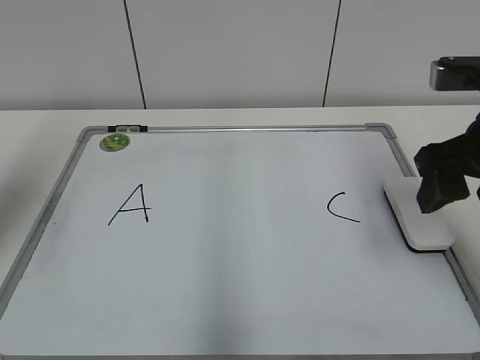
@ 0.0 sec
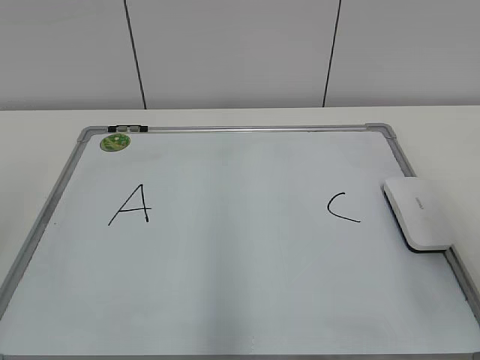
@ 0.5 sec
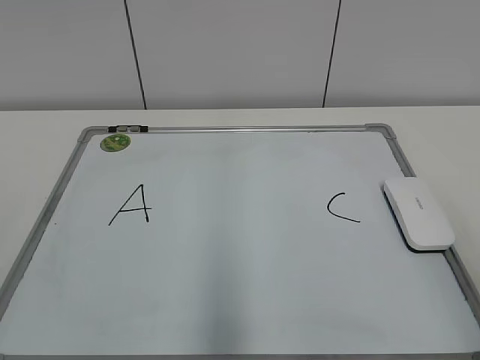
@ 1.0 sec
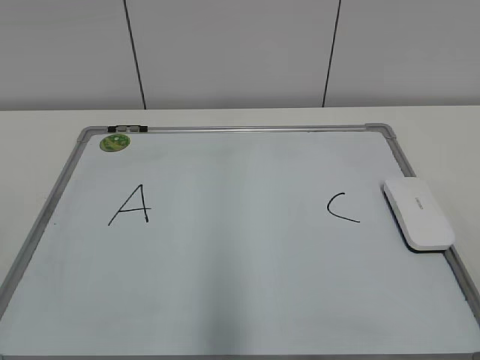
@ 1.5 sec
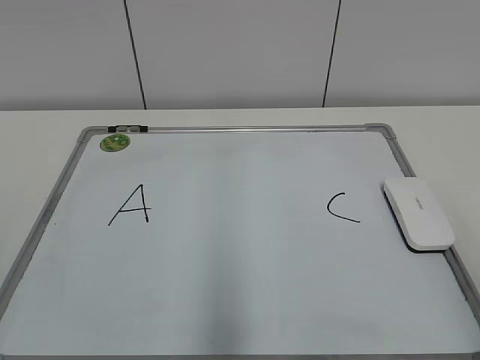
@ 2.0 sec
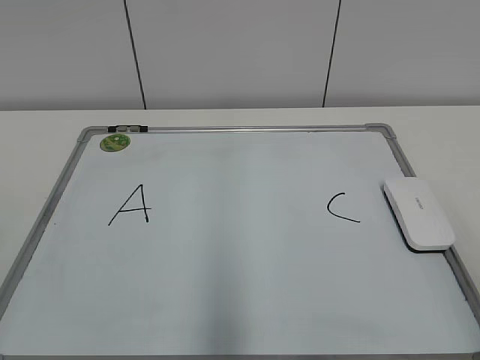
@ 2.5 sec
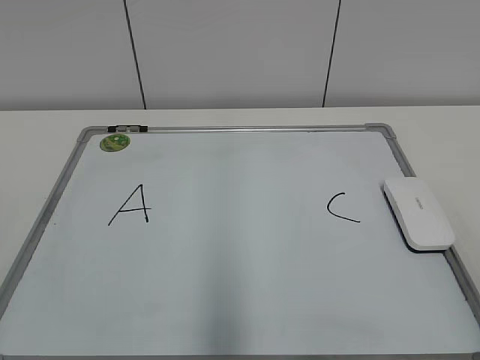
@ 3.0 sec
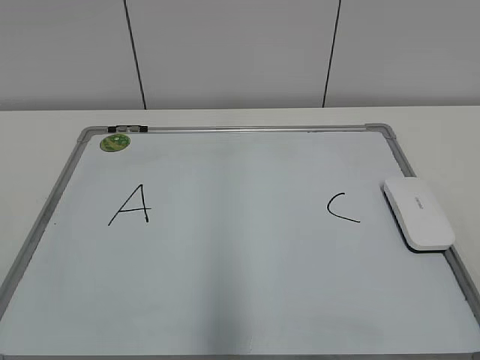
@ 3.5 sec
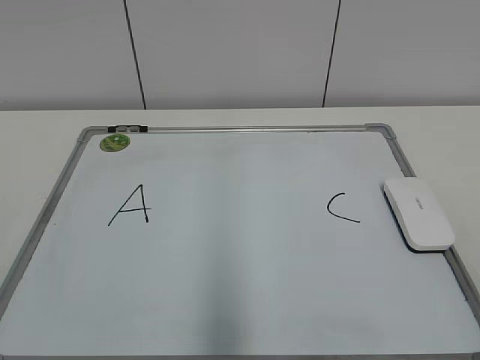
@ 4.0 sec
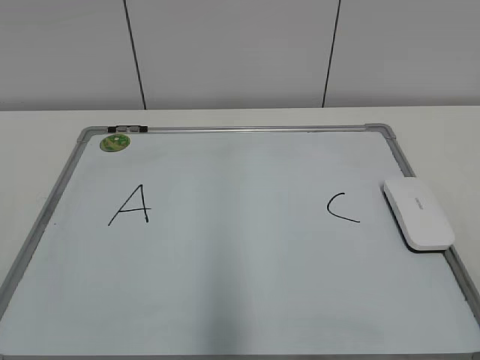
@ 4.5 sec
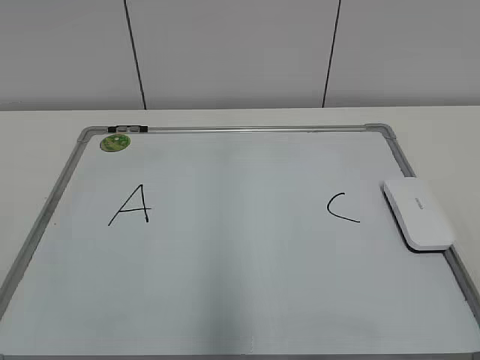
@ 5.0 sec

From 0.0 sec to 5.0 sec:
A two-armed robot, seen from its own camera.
Task of the whole recording: pick up the eraser on the blackboard and erase the letter "B".
From 0.0 sec to 2.5 sec: The grippers both shift backward by some 25 cm.
